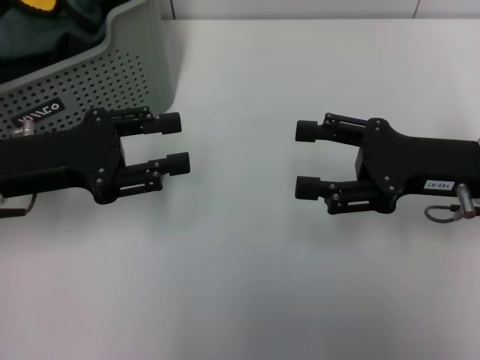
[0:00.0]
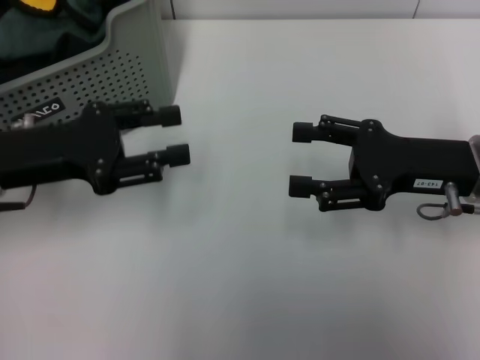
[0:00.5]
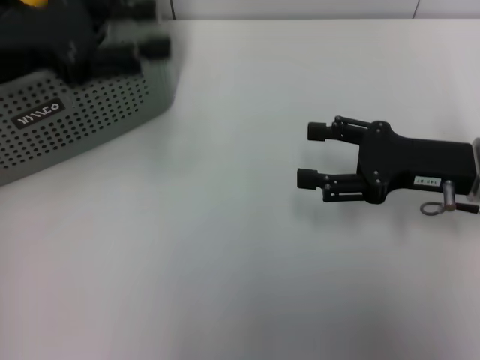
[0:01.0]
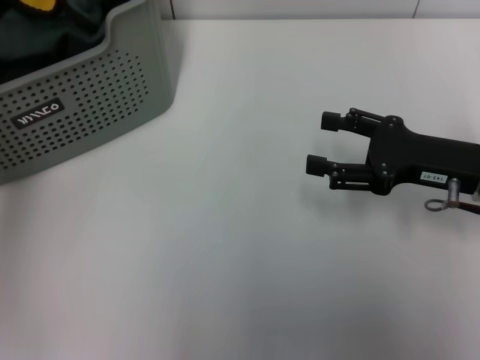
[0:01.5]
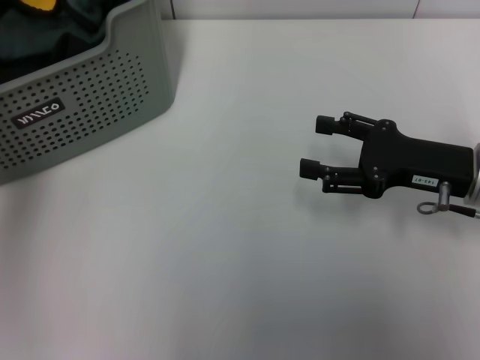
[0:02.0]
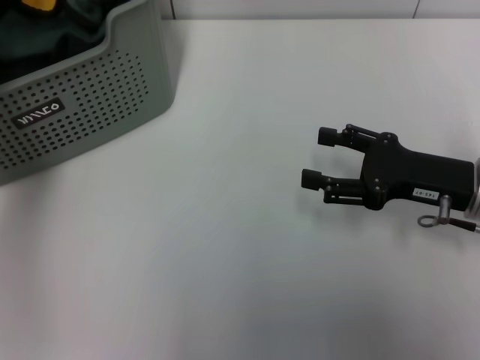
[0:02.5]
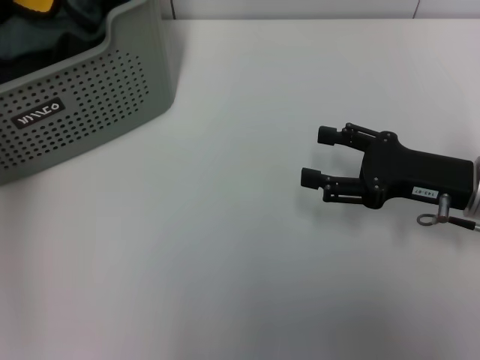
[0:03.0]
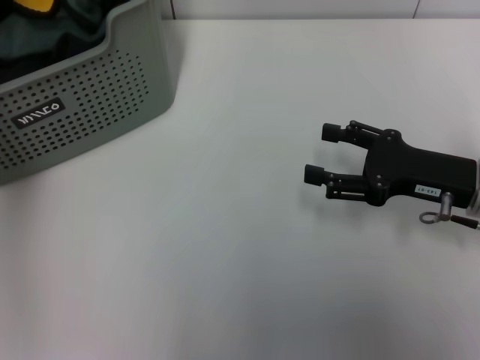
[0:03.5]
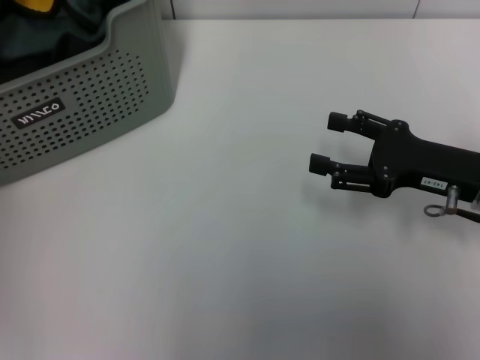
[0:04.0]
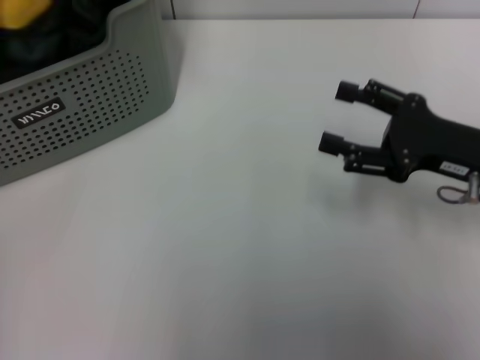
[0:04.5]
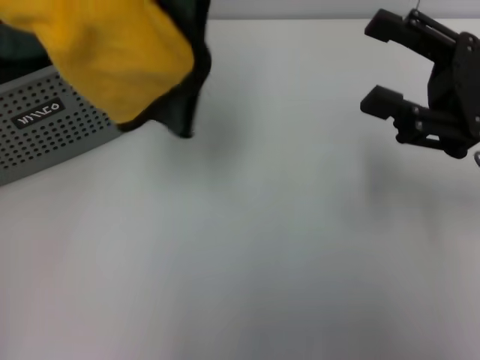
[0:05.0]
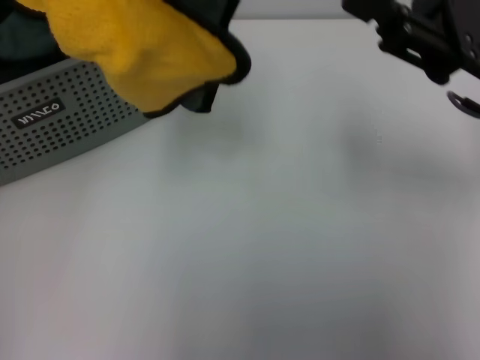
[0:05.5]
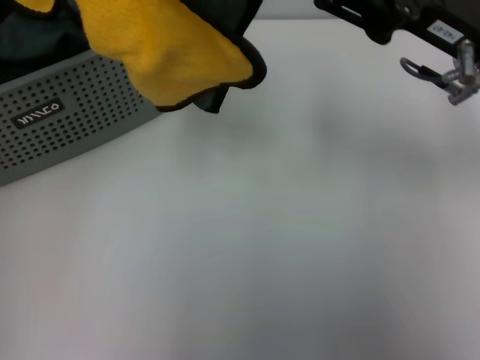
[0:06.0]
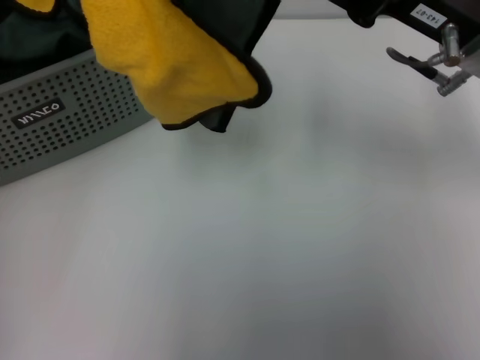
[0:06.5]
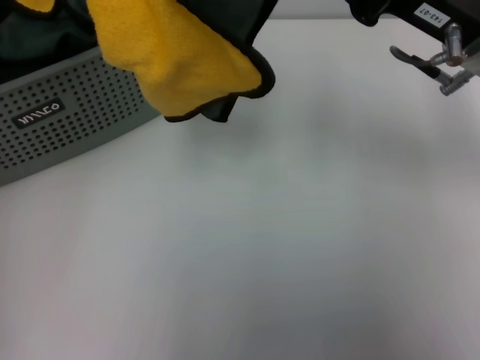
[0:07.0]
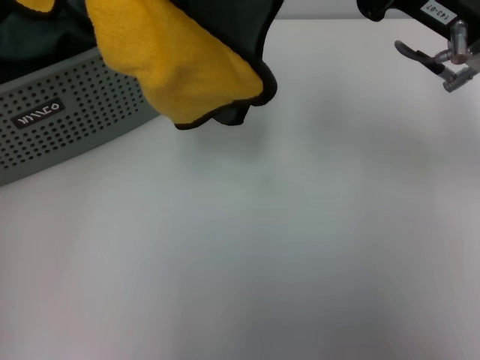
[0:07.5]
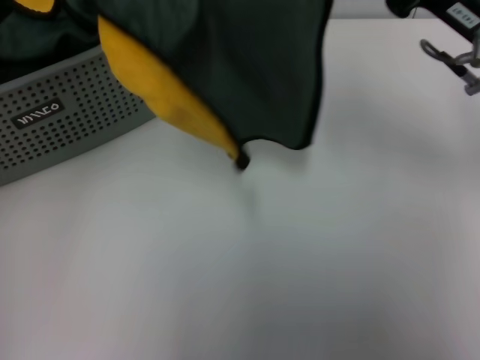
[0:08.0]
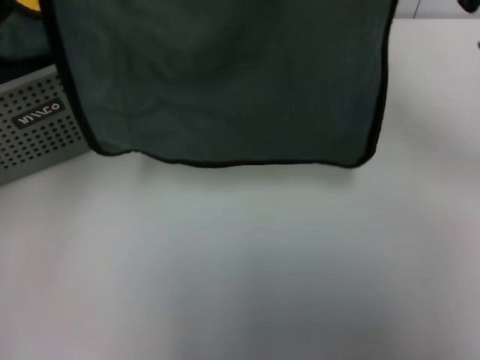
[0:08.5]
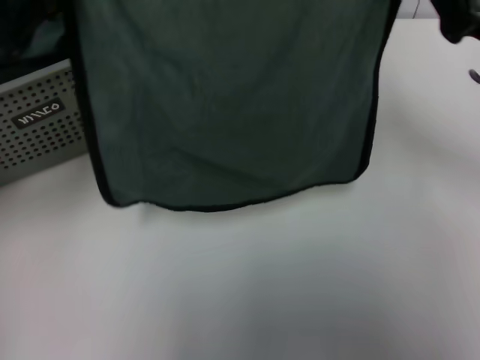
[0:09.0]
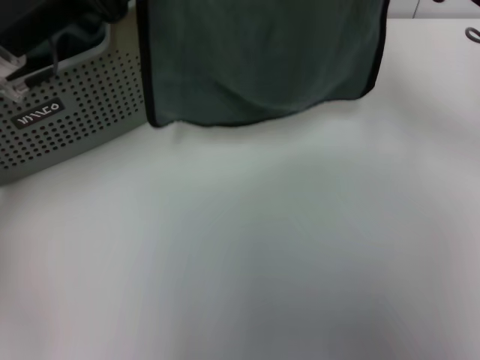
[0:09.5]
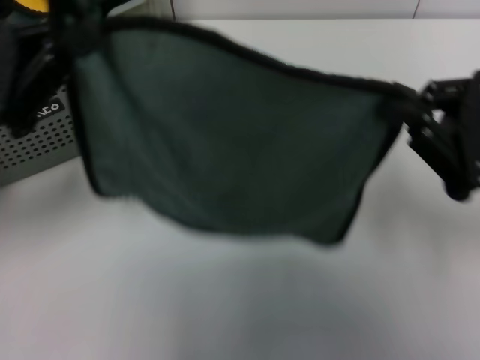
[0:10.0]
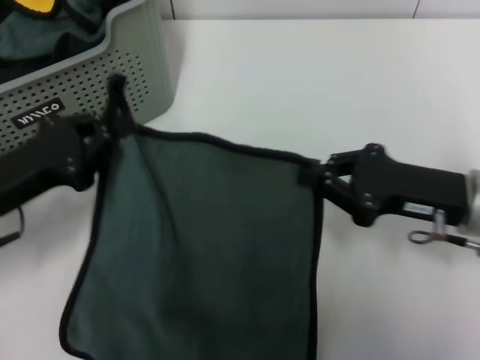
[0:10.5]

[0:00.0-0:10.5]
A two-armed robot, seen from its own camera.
Task of the whole recording: pick up the towel from the storage box and lay it flat on the table.
Step, 0:00.0 to 0:03.5: Pick up a towel with the left gripper.
Step, 0:04.0 to 0:08.0: Spread the towel flat with the left gripper.
0:00.0 to 0:02.0: The left gripper goes some 15 cm upward.
0:02.0 to 0:04.0: The left gripper goes downward and returns, roughly 5 cm each way, and closes up.
0:04.0 to 0:06.5: The left gripper is displaced backward by some 5 cm. Meanwhile the right gripper goes approximately 15 cm upward and to the left.
0:06.5 to 0:08.5: The right gripper moves to the right, approximately 5 cm, and closes its fingers. Meanwhile the left gripper shifts approximately 10 cm downward.
0:08.5 to 0:10.5: The left gripper goes about 15 cm downward. The right gripper travels downward by some 10 cm.

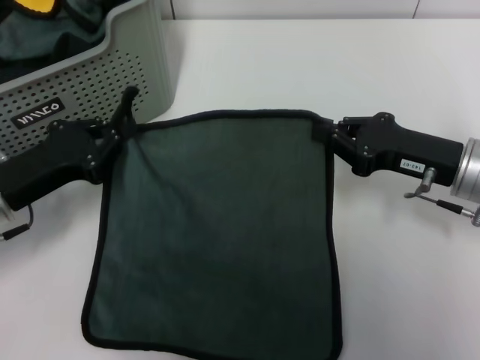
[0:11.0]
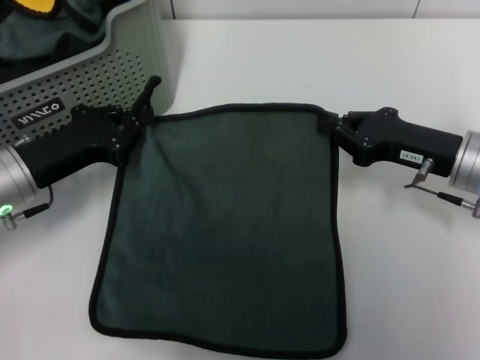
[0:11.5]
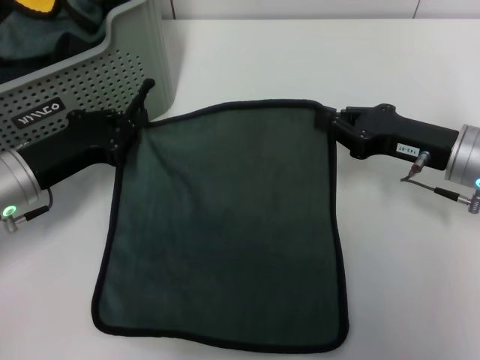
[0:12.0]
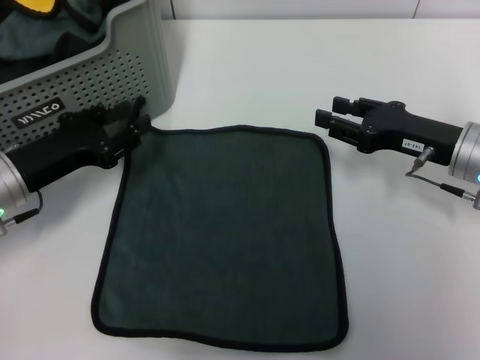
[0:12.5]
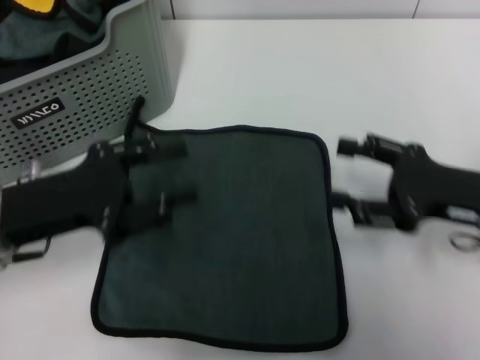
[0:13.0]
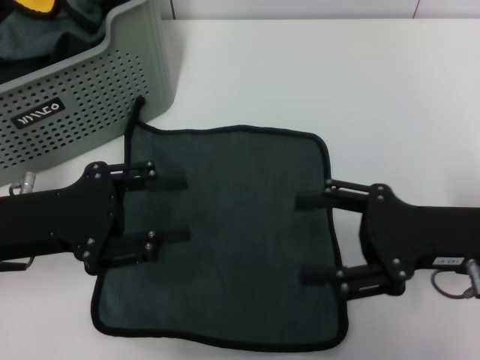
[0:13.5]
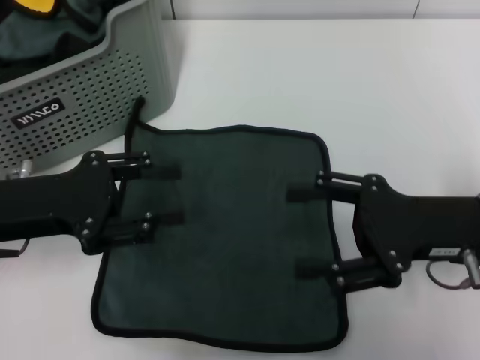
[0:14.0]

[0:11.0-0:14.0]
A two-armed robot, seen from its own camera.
Task of the whole recording: pick up the towel from the storage box and lay it flat on the table.
0:11.0 to 0:12.5: The left gripper opens up, while the right gripper opens its fingers.
0:12.5 to 0:14.0: The left gripper is displaced upward by roughly 5 cm, and opens. Meanwhile the right gripper shifts some 10 cm backward, and opens.
